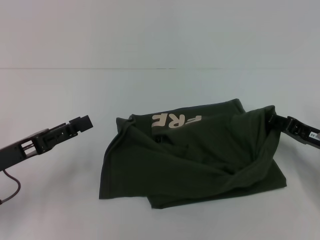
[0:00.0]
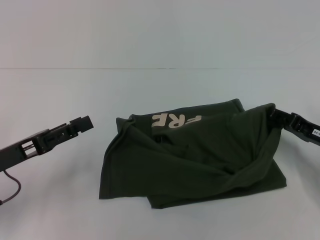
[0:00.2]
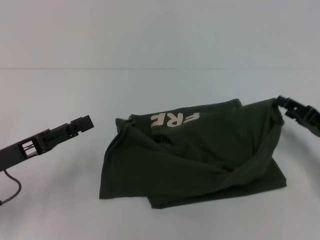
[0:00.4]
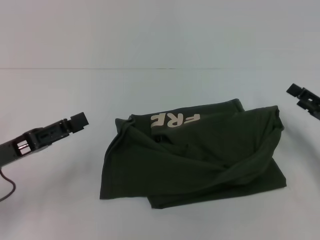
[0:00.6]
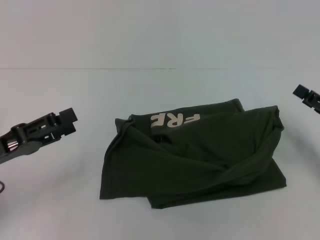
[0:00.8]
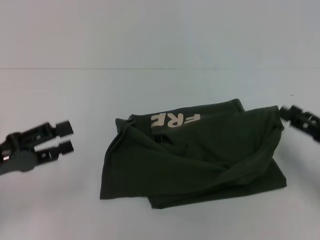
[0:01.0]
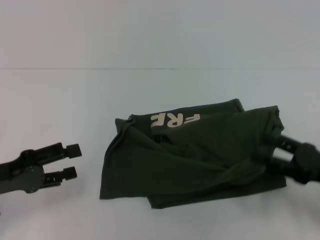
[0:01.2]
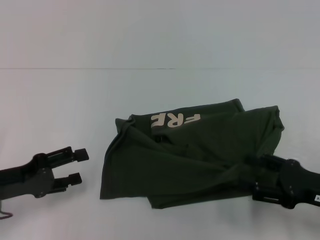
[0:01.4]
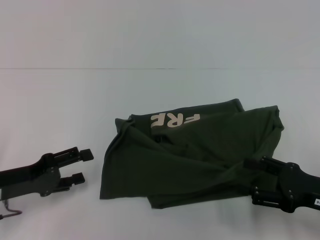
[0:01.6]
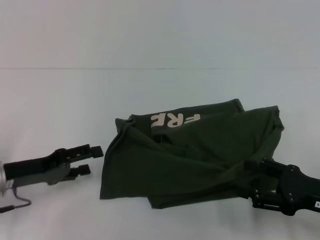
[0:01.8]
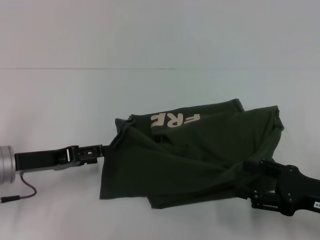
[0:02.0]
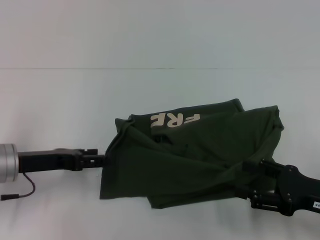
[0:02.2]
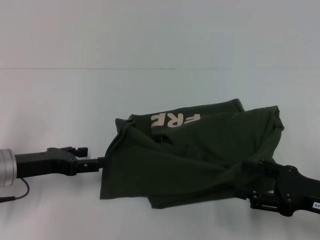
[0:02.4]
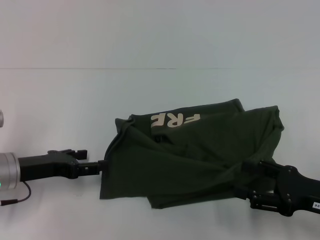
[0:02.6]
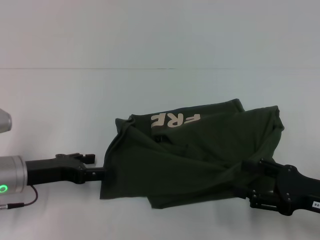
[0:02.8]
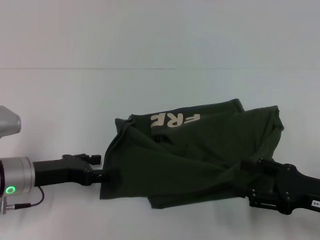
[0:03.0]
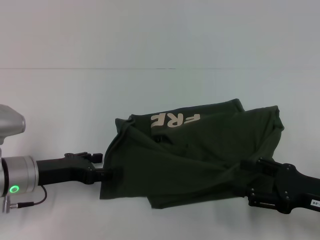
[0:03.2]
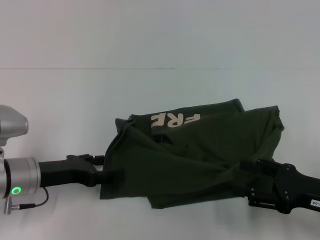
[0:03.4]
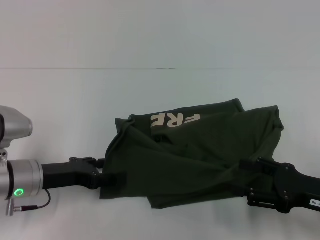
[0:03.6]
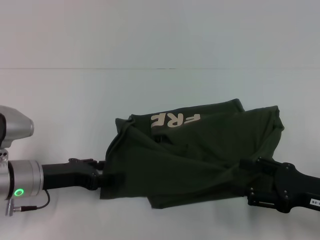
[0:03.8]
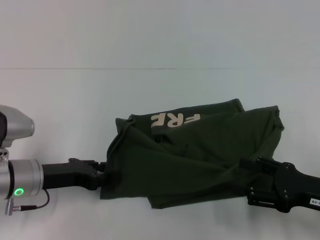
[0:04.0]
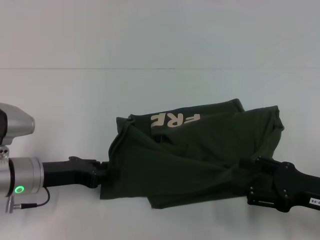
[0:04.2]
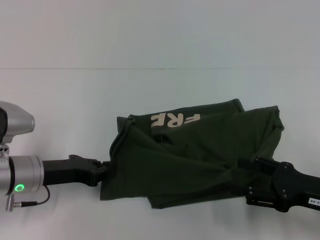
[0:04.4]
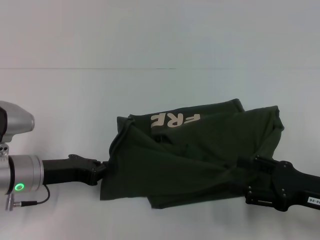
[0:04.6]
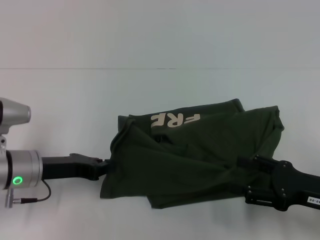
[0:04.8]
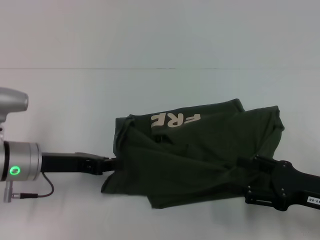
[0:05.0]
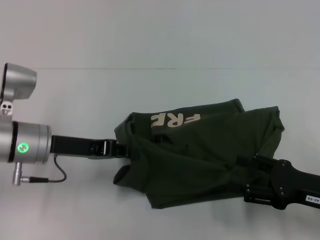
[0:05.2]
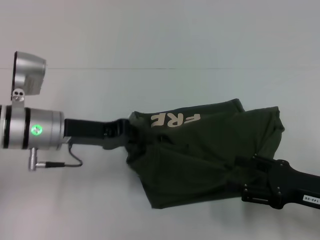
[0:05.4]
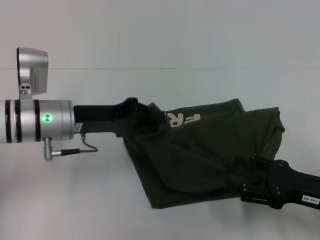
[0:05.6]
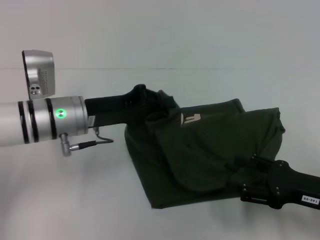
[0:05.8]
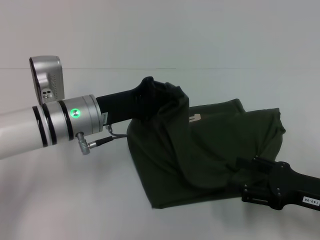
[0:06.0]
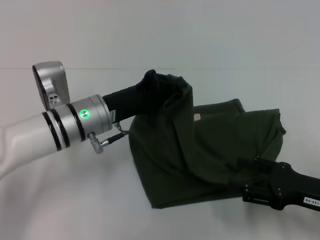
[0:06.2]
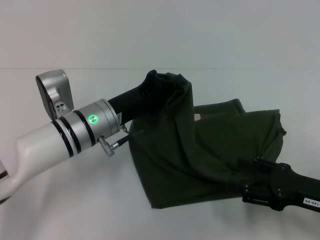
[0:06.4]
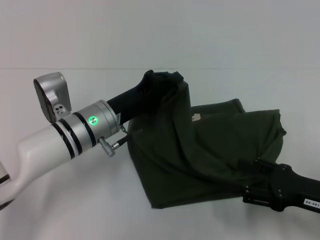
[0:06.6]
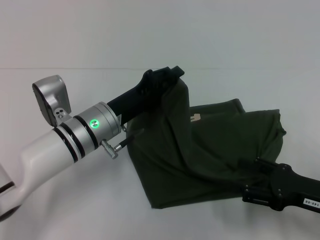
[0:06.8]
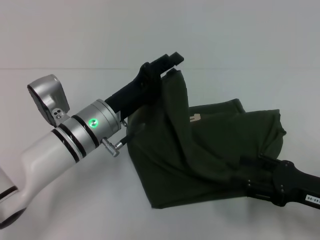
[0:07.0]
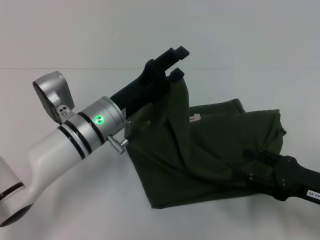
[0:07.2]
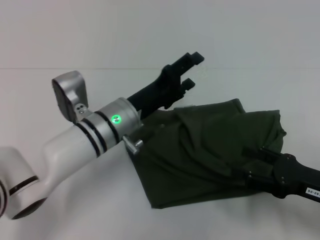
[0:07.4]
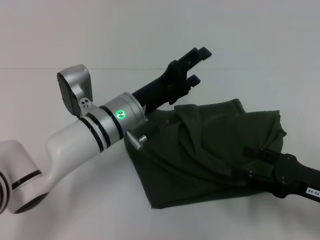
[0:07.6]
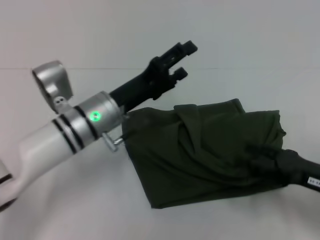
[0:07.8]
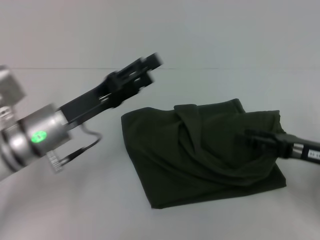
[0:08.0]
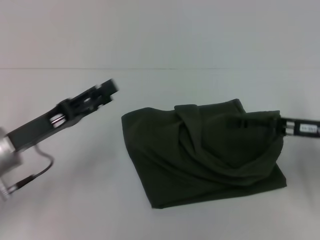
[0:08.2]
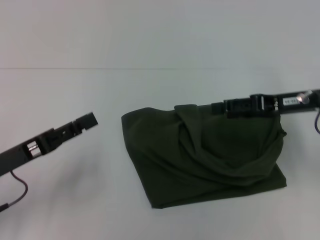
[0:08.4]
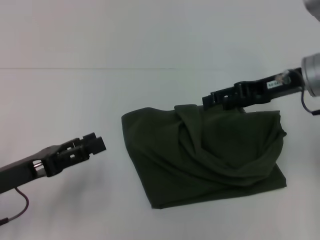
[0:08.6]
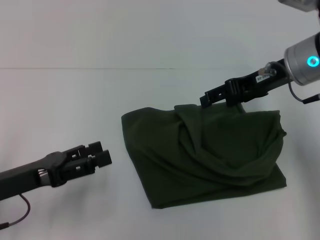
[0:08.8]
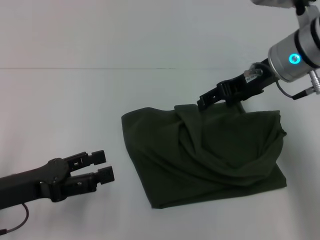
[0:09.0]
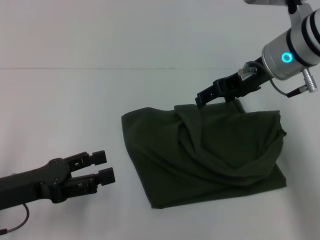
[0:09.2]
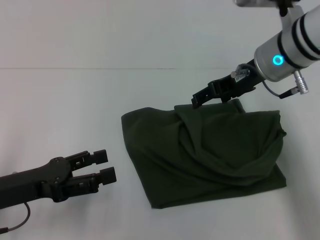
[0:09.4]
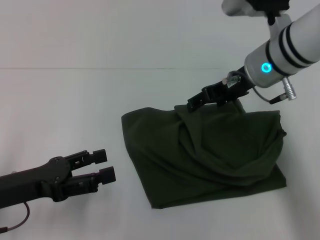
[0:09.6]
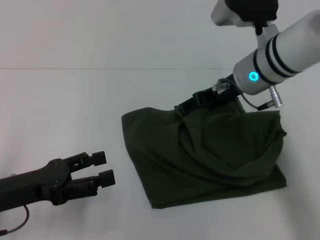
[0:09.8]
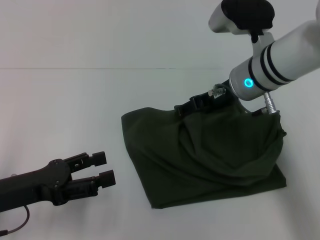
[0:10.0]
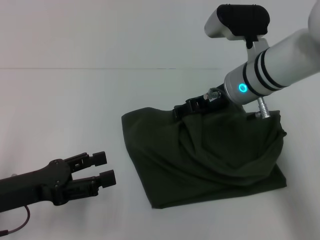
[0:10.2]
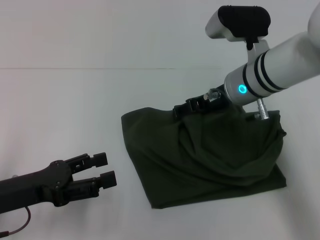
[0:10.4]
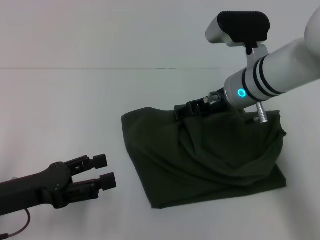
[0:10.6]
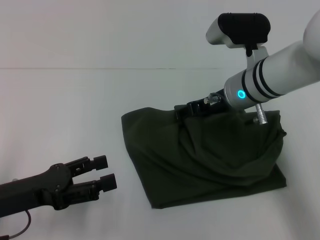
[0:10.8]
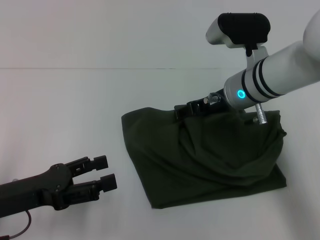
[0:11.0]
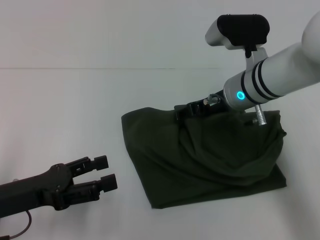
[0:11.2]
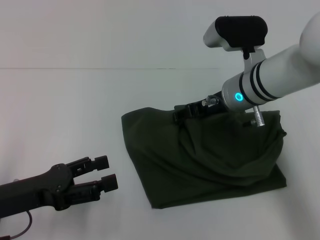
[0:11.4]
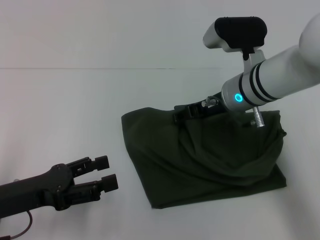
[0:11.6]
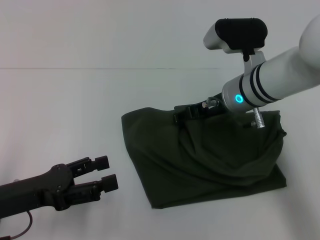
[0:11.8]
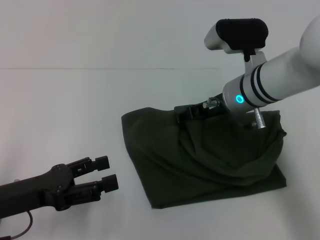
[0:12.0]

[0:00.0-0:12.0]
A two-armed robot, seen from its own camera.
0:00.0 to 0:01.6: The right gripper is displaced backward by some 10 cm, and opens.
0:01.6 to 0:03.0: The left gripper changes place by approximately 5 cm.
0:03.0 to 0:04.4: The left gripper closes up.
0:04.4 to 0:06.0: The left gripper travels to the right and upward by approximately 10 cm.
0:06.0 to 0:07.6: The left gripper goes roughly 5 cm to the right, and opens its fingers.
0:07.6 to 0:09.0: The right gripper goes approximately 25 cm forward, upward and to the left, while the left gripper moves to the left and backward, approximately 20 cm.
0:09.0 to 0:10.4: The right gripper moves downward, roughly 5 cm.
0:10.4 to 0:12.0: The grippers make only small movements.

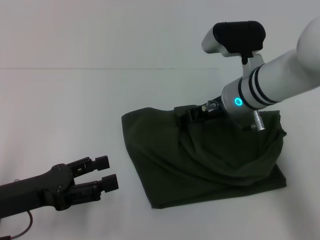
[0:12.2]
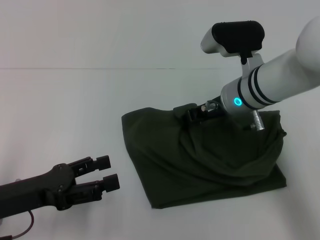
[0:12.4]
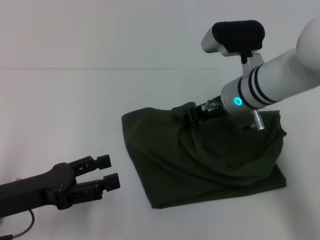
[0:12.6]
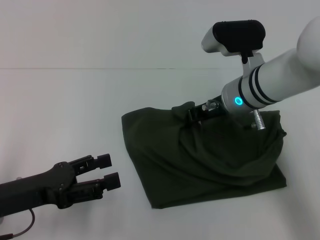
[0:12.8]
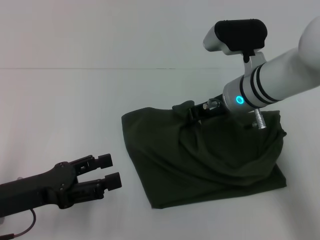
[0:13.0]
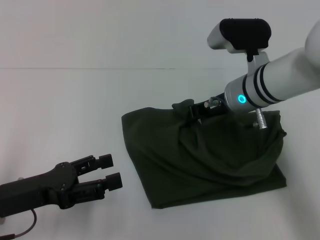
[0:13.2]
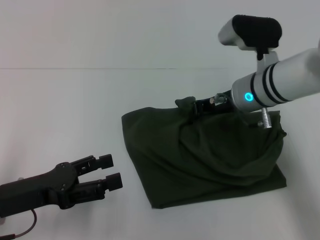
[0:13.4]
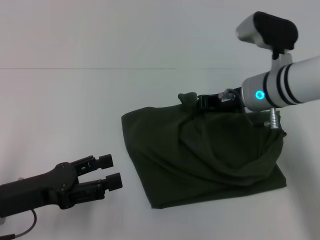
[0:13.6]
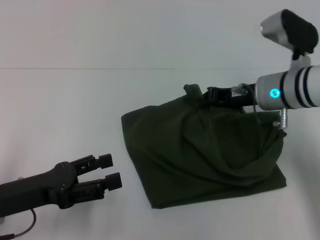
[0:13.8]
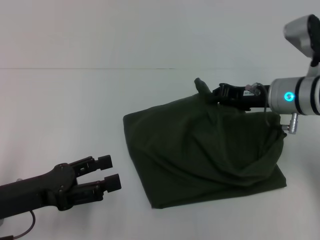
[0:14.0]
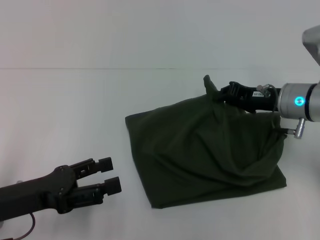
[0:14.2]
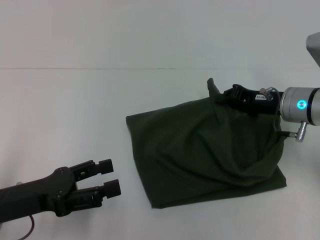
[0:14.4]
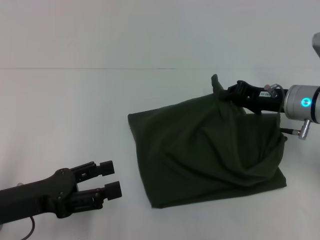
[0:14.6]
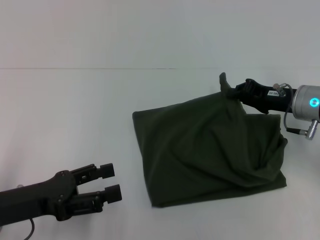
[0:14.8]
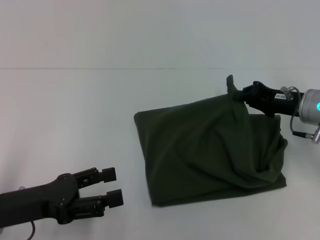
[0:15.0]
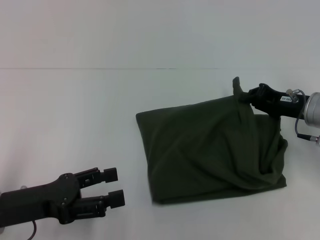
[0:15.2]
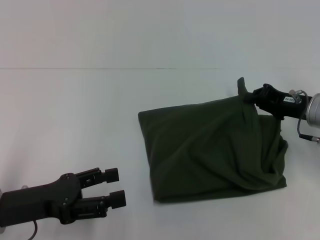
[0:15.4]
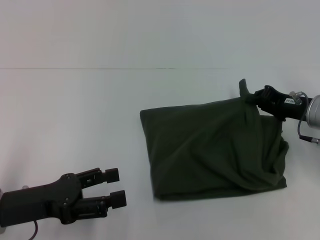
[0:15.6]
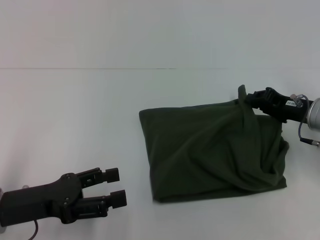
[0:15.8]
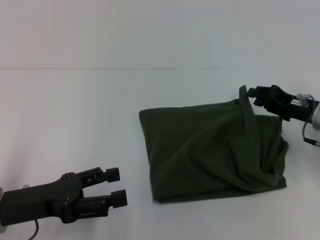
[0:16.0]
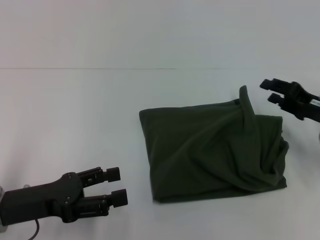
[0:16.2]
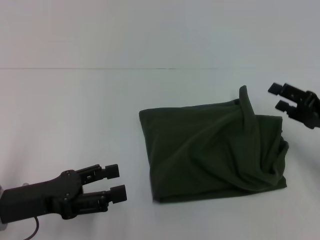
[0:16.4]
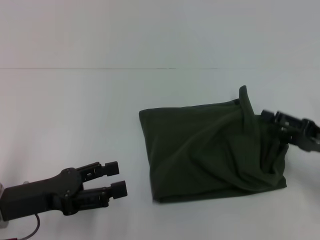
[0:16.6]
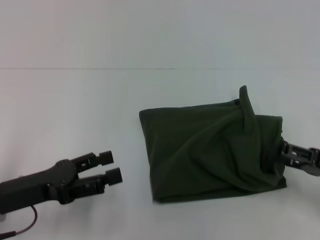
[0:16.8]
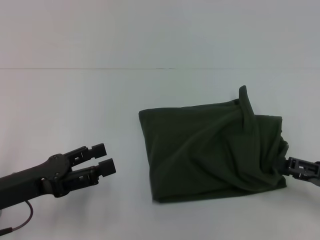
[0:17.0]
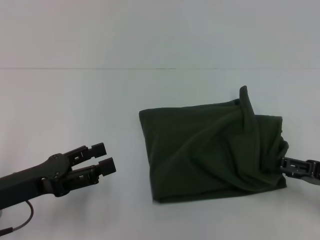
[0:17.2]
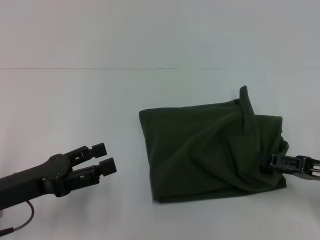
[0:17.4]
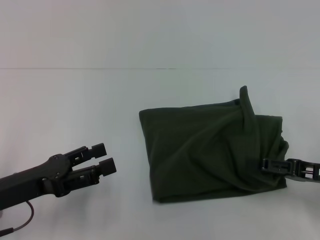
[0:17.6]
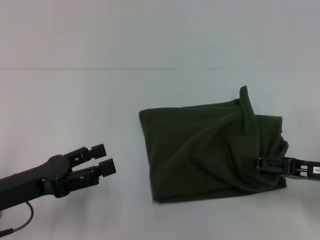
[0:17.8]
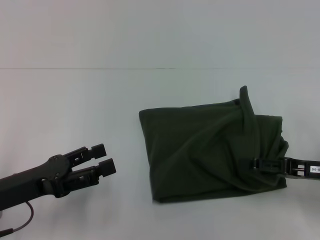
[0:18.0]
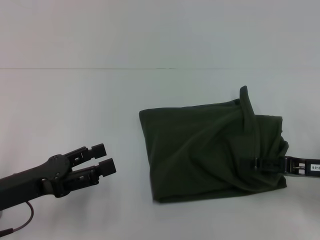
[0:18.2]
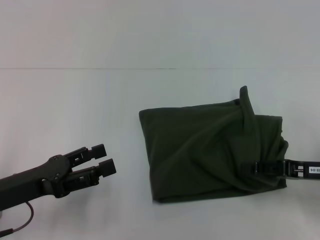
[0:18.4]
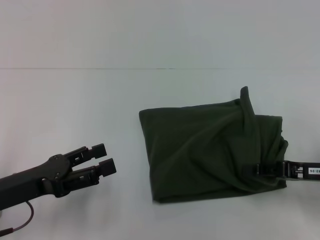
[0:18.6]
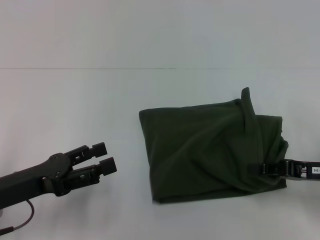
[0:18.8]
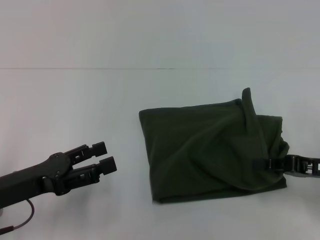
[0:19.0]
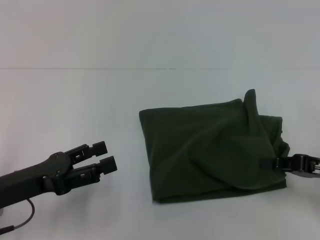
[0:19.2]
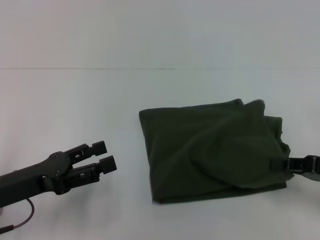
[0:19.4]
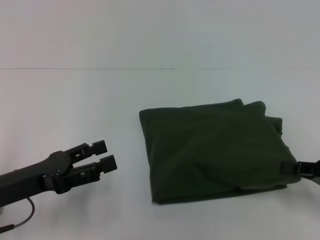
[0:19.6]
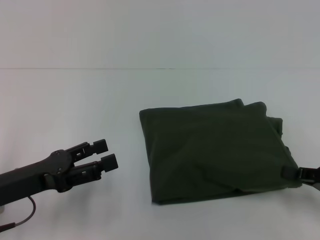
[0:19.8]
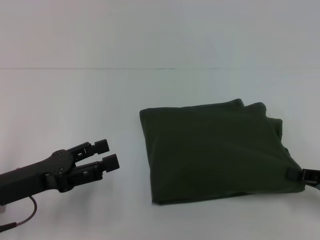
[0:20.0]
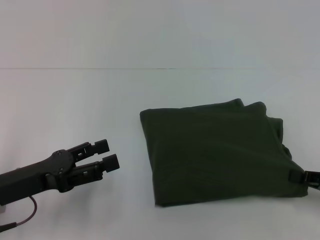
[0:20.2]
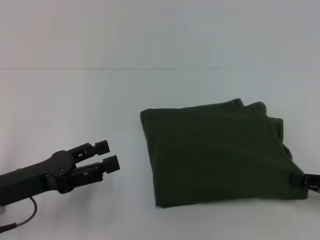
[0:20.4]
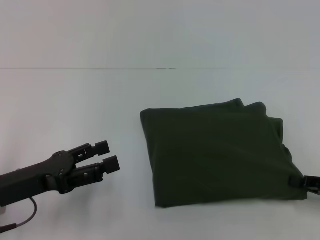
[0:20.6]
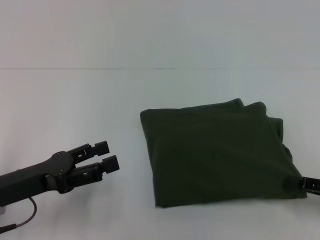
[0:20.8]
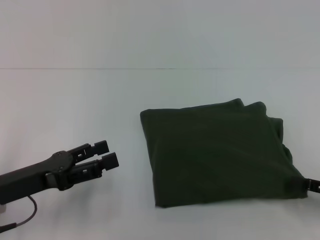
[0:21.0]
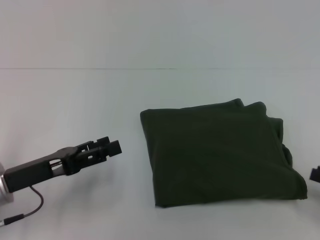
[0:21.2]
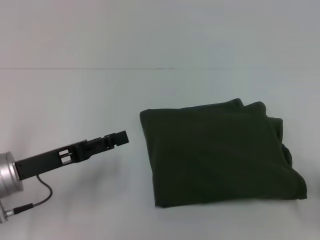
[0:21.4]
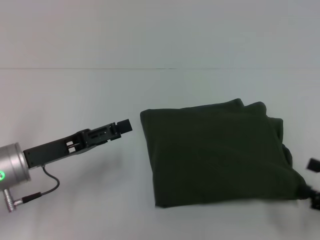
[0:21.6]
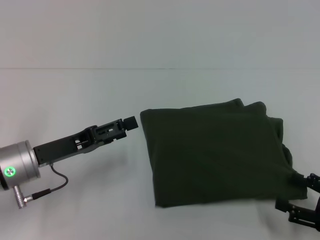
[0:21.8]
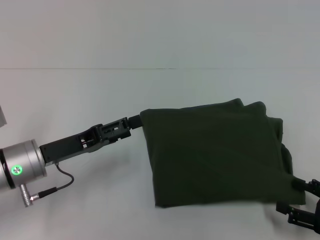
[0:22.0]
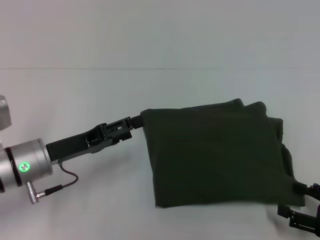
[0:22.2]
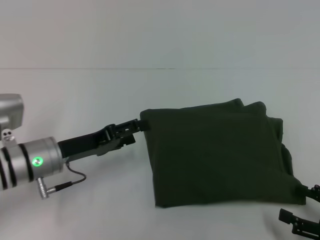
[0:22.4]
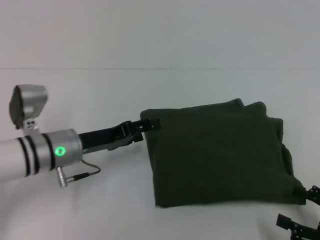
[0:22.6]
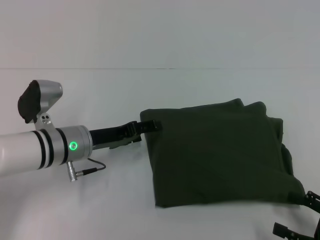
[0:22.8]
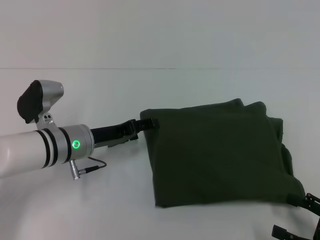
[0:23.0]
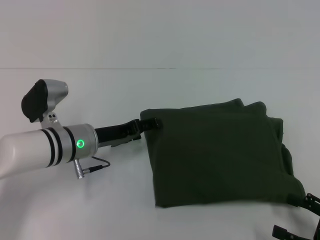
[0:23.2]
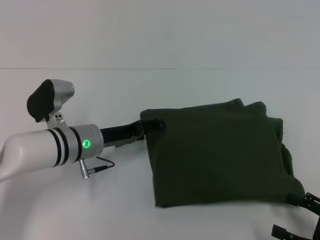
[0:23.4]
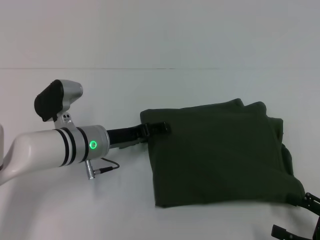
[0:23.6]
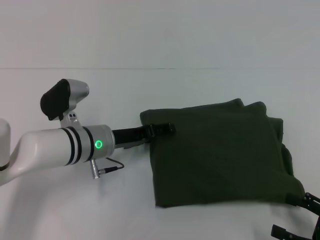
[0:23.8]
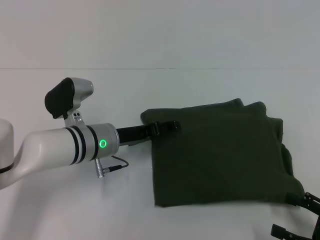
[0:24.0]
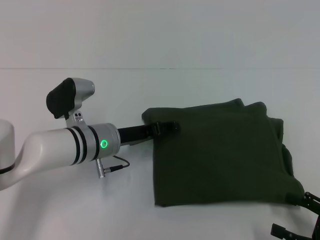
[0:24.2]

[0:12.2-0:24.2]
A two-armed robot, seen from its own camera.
0:12.2 to 0:13.8: The right gripper goes about 5 cm to the right, and closes up.
0:13.8 to 0:15.2: The right gripper shifts some 10 cm to the right.
0:15.2 to 0:16.6: The right gripper is displaced backward and to the right by roughly 10 cm, and opens its fingers.
0:18.2 to 0:19.8: The right gripper ends up about 5 cm from where it was, and closes.
0:19.8 to 0:21.2: The right gripper opens.
0:21.2 to 0:22.6: The right gripper shifts by some 5 cm, and opens up. Meanwhile the left gripper moves forward and to the right, roughly 10 cm.
0:22.6 to 0:24.2: The left gripper shifts approximately 5 cm to the right.
